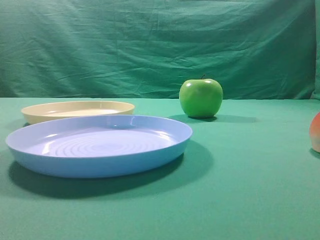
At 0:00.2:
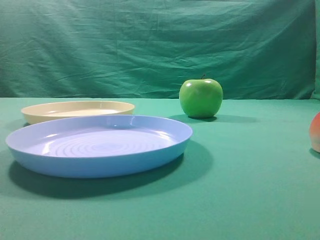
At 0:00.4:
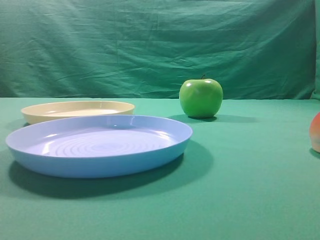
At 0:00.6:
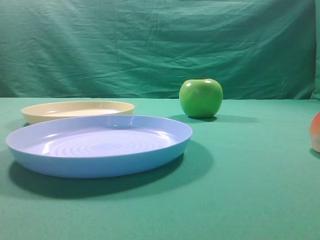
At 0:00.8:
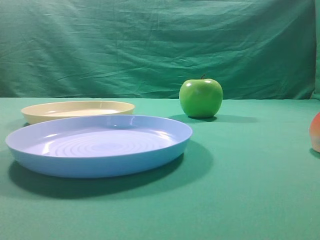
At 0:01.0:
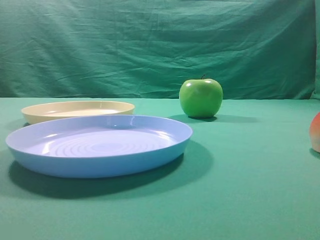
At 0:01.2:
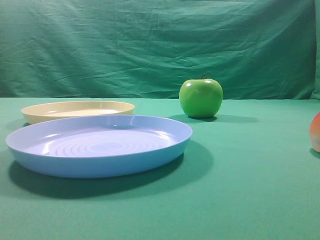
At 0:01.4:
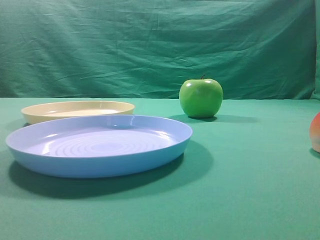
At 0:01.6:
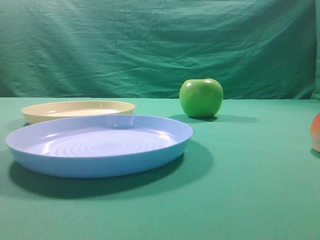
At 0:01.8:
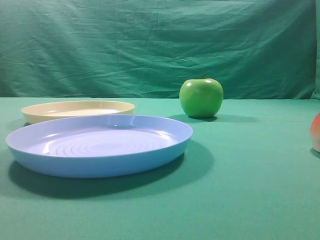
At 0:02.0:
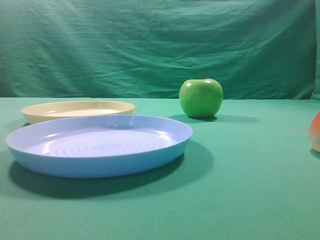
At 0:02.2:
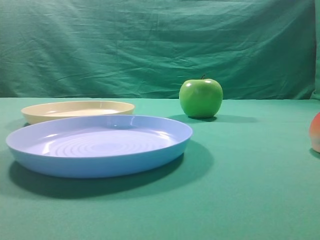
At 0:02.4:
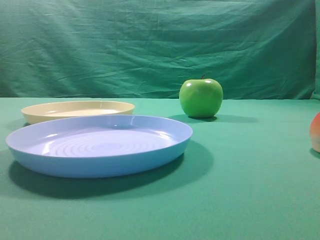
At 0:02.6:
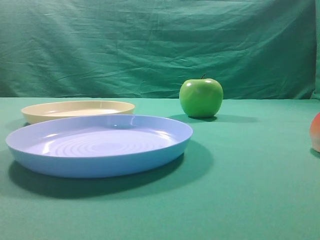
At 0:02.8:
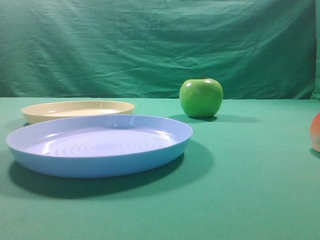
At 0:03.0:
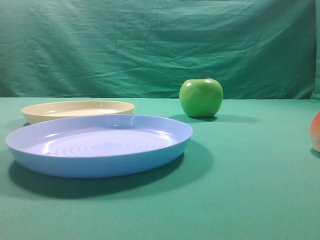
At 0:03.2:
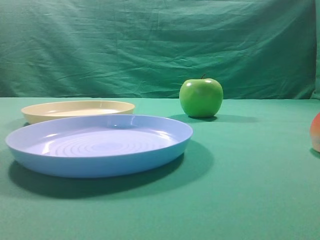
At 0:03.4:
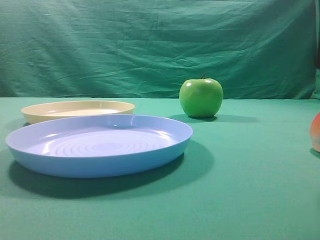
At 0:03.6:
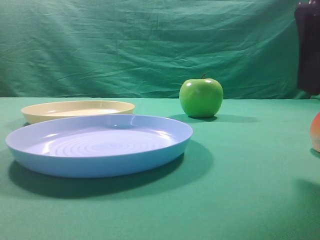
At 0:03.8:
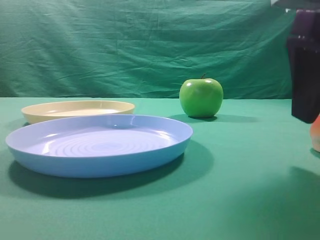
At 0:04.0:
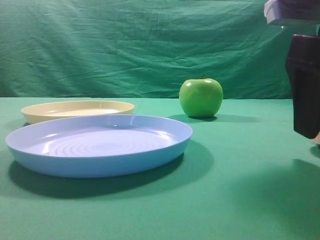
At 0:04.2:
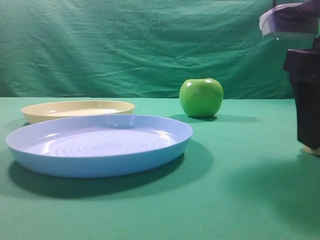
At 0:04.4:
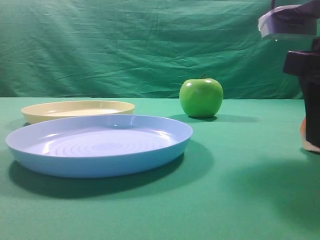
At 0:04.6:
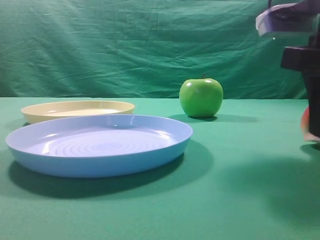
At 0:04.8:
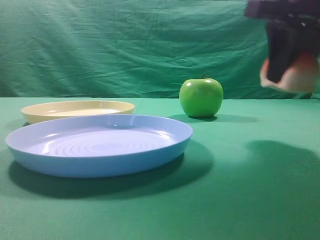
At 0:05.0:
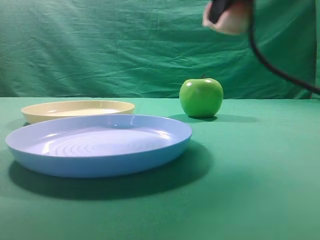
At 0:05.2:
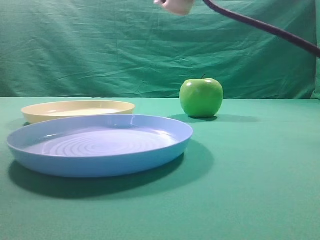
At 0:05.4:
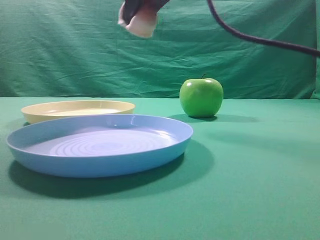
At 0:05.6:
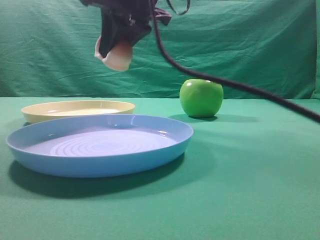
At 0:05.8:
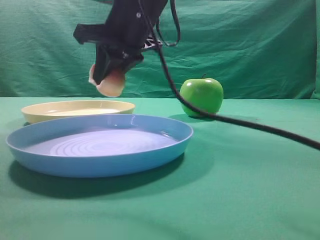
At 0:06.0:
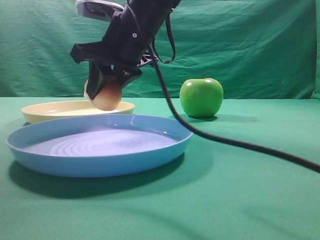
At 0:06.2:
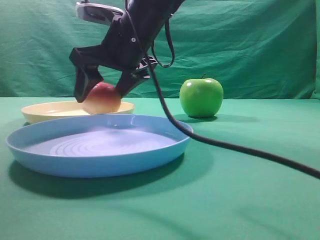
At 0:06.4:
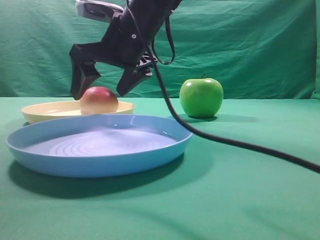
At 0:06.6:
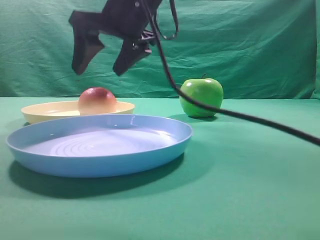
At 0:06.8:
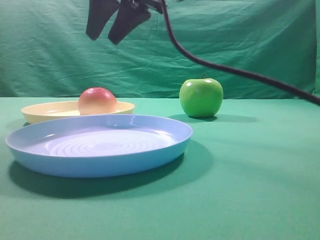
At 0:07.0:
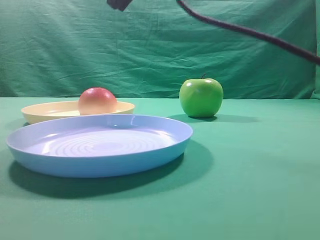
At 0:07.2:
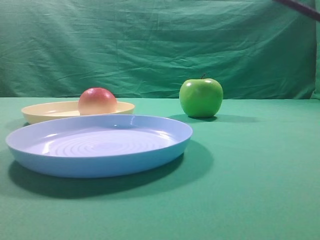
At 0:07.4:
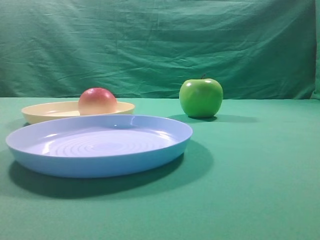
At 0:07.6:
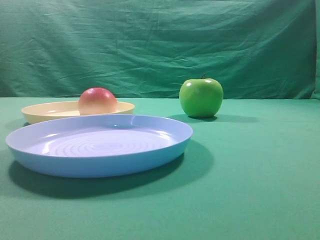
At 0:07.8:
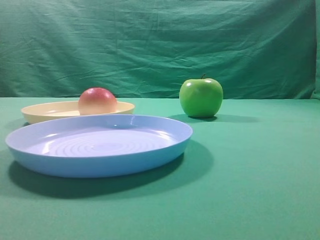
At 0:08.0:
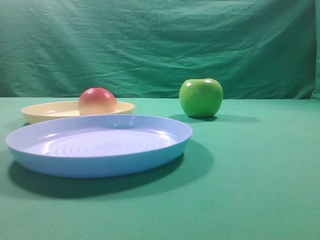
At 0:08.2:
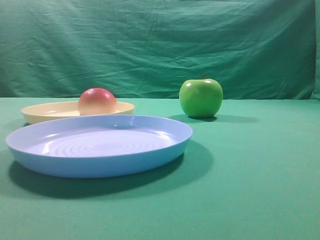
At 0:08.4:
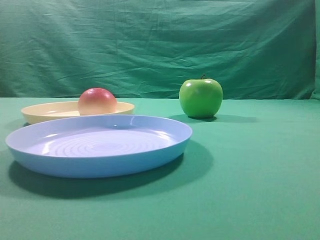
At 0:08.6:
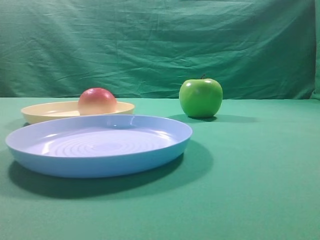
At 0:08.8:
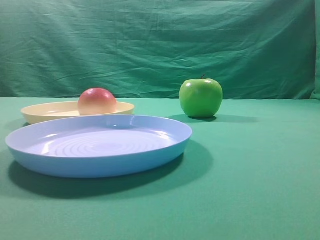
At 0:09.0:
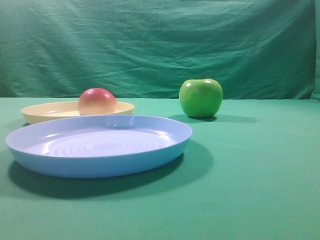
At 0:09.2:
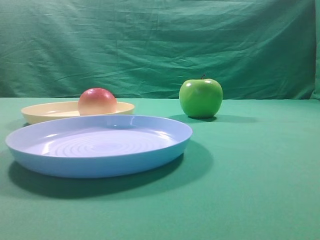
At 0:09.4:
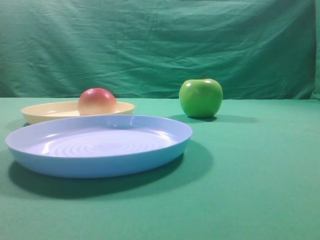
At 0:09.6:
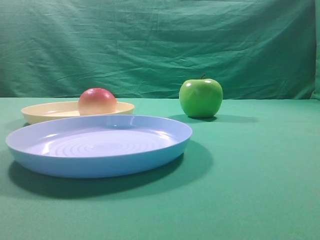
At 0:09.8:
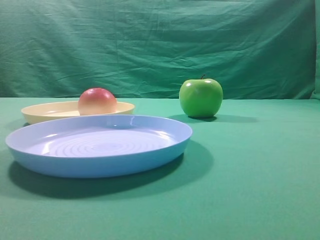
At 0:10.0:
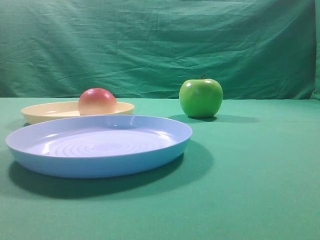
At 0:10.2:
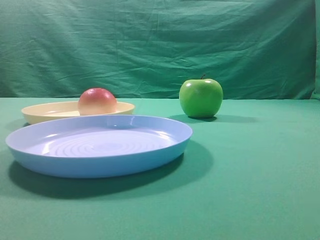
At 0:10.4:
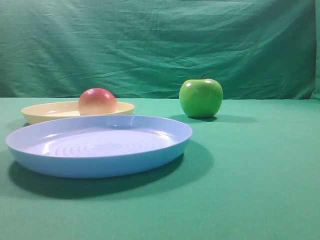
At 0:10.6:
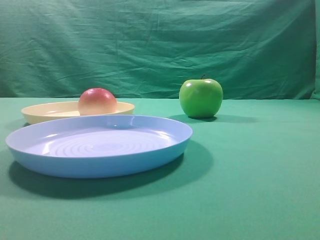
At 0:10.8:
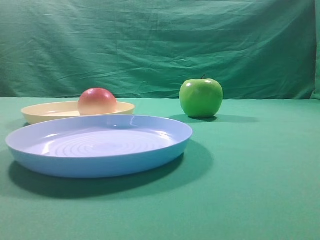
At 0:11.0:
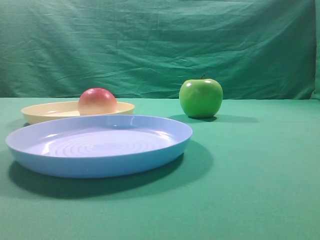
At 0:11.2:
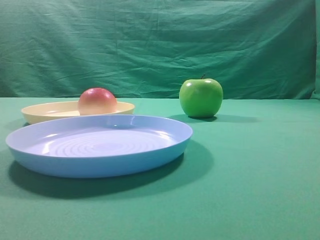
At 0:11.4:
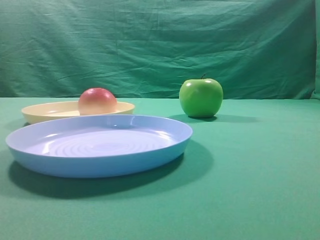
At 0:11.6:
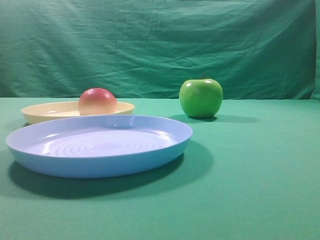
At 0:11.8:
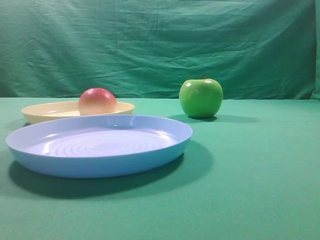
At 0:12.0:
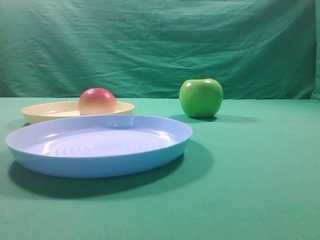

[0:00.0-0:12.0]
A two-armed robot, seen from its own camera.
Step, 0:04.8 to 0:06.4: Place the picked object on the yellow plate.
